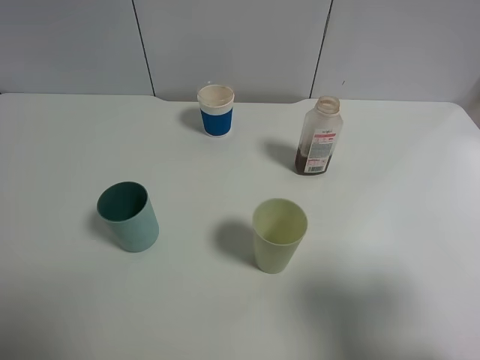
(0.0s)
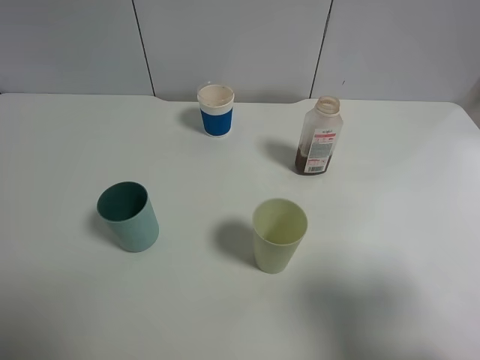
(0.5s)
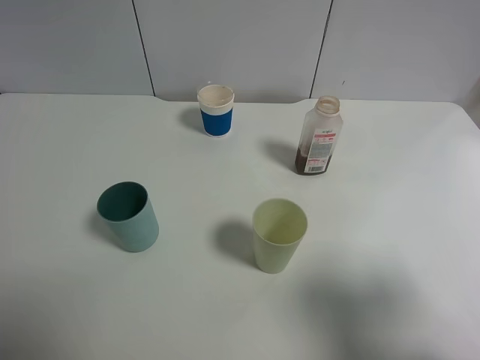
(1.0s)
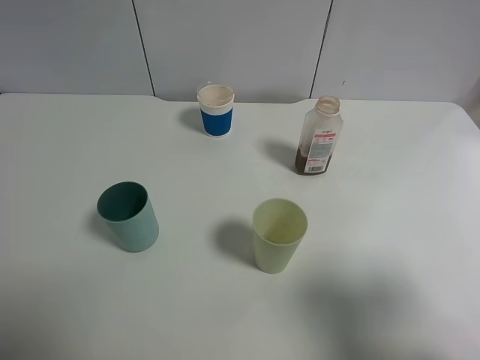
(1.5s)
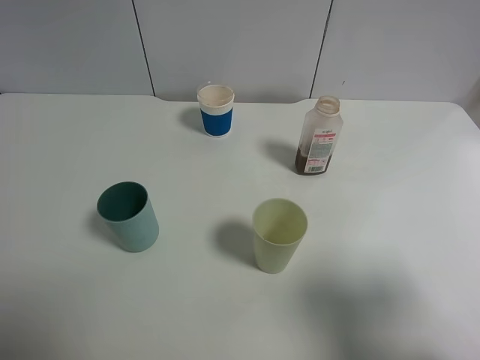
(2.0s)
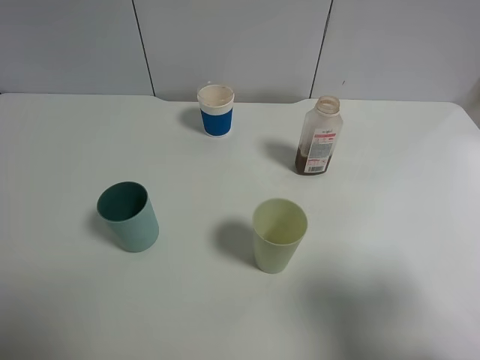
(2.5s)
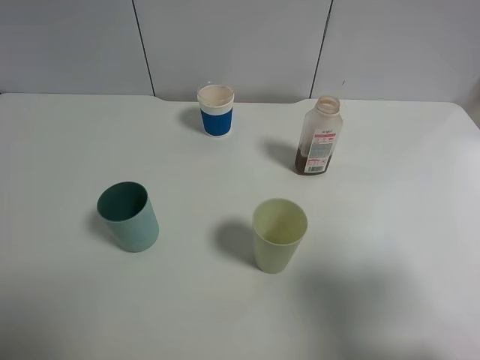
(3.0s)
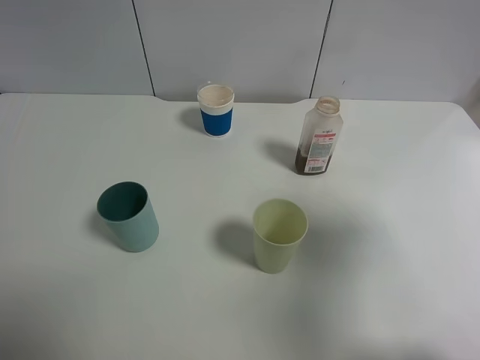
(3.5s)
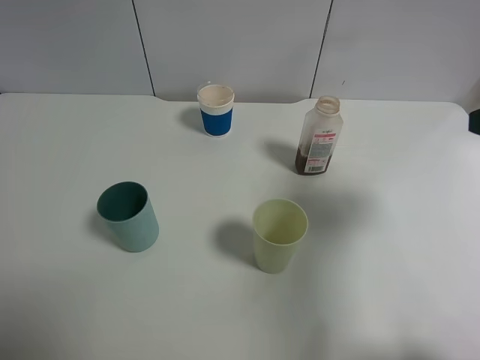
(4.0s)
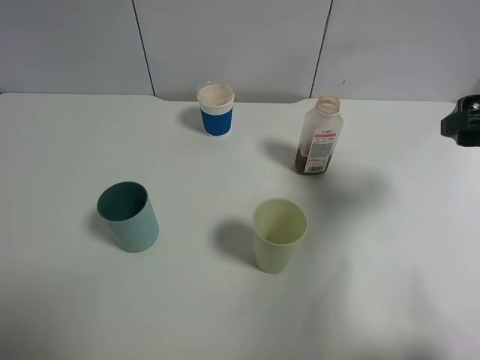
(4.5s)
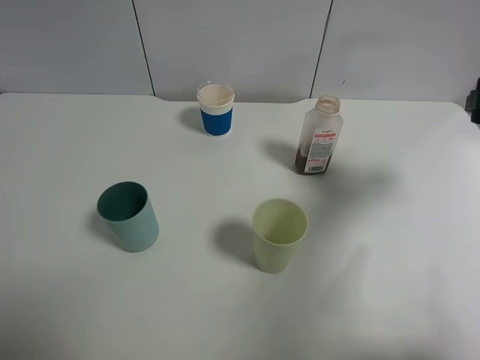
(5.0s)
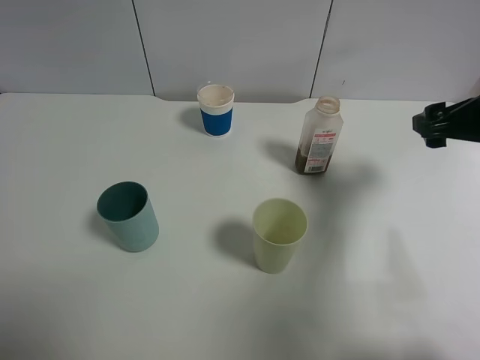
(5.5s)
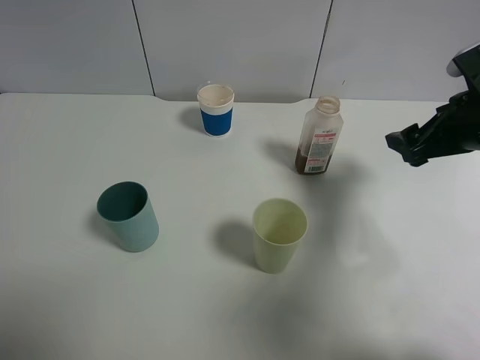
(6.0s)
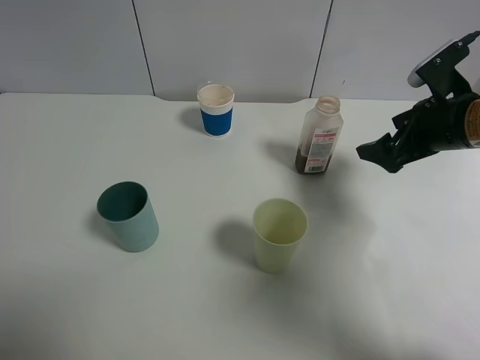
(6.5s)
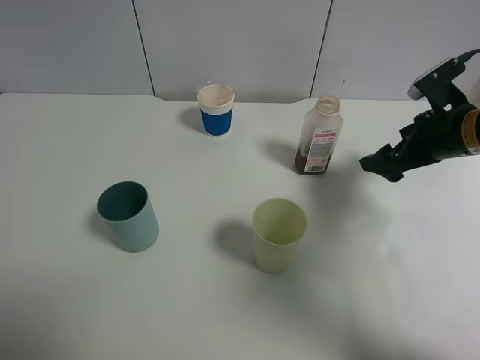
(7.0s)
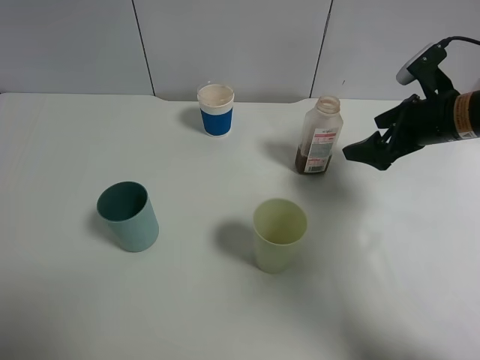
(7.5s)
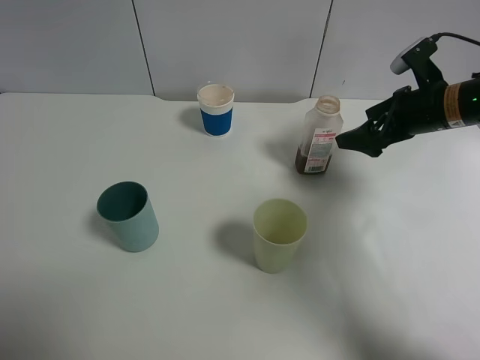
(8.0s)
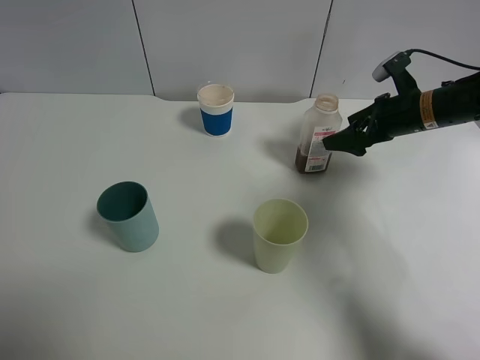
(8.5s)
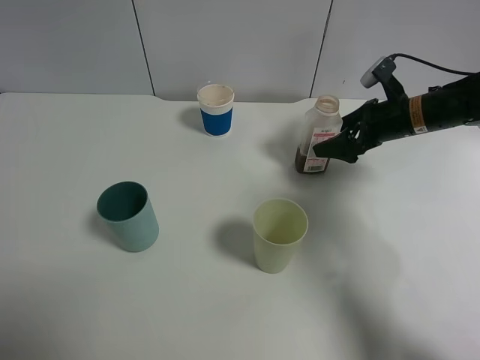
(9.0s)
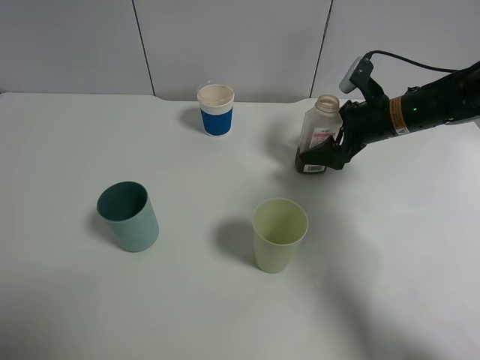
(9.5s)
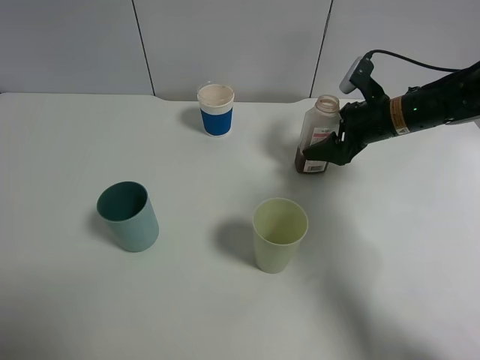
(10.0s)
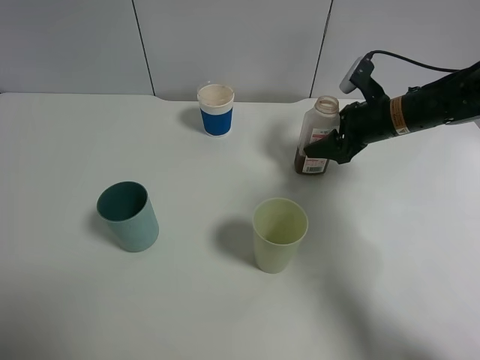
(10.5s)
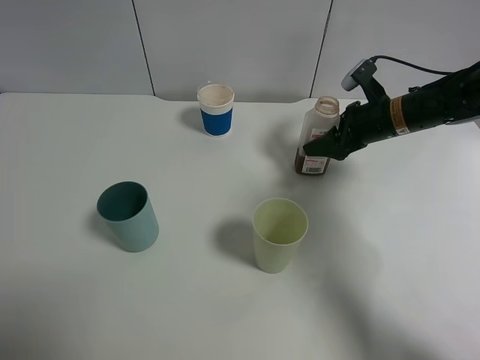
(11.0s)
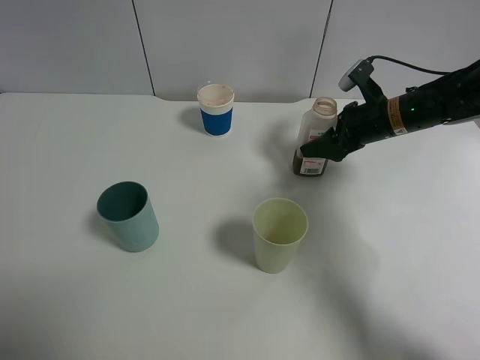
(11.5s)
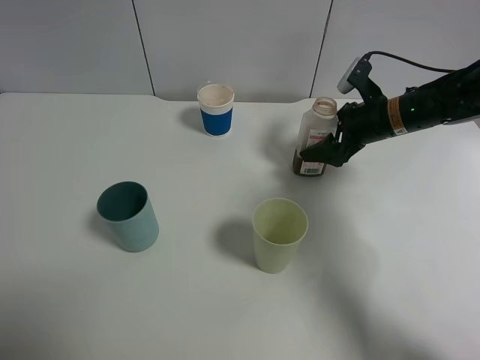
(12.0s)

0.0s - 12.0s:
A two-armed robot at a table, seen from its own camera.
Task of the whole recording: use a gripper to hold the bottle of the drink and pour it into a random cup.
Step, 0.0s - 10.0s: Grasp the cranberry juice bottle with the right gripper.
0.0s - 2.0s: Both grippers stay put.
2.0s - 4.0s: The right gripper is displaced forward by about 15 cm.
4.0s - 6.0s: The right gripper shifts roughly 15 cm forward and downward.
6.0s - 8.0s: The right gripper travels forward by roughly 10 cm.
8.0s - 10.0s: The right gripper ends up some 5 cm from where it was, and closes up.
10.0s - 12.0s: The grippers stay close to where they were, moving slightly.

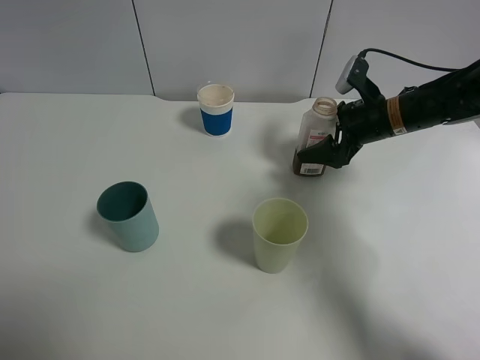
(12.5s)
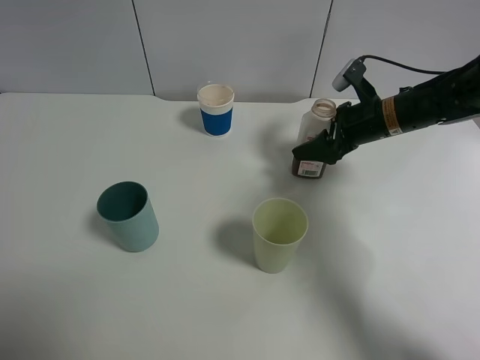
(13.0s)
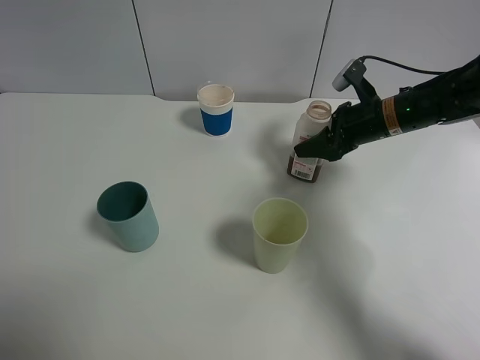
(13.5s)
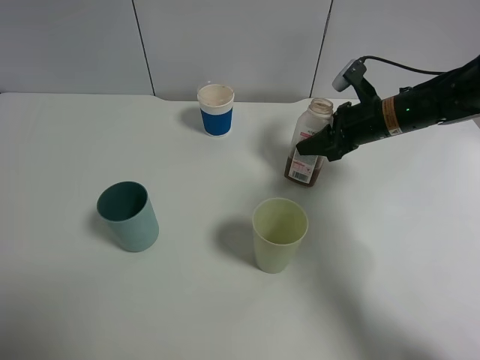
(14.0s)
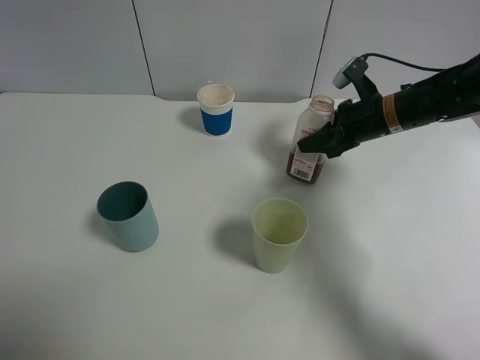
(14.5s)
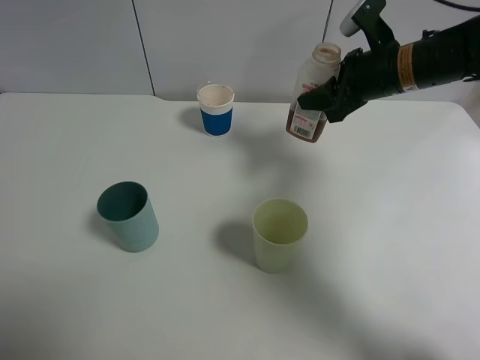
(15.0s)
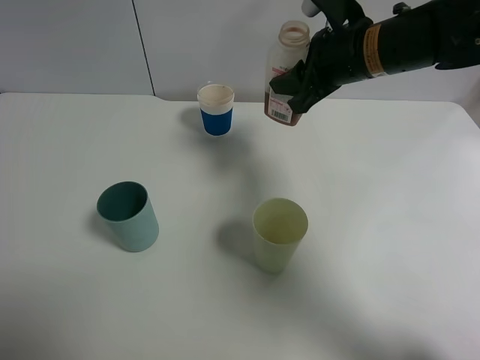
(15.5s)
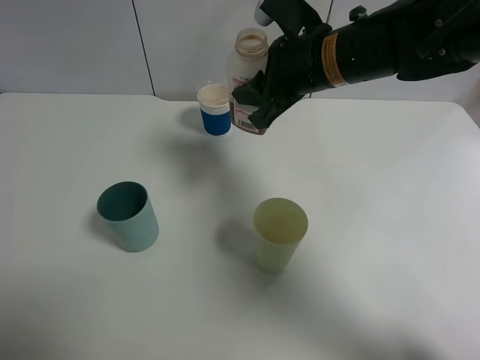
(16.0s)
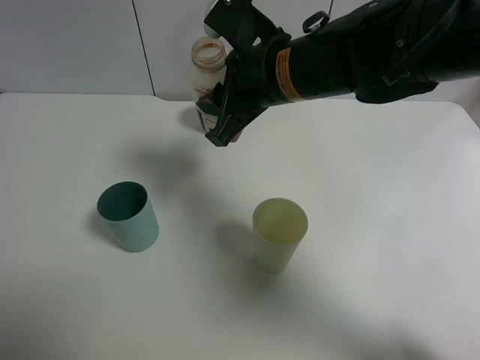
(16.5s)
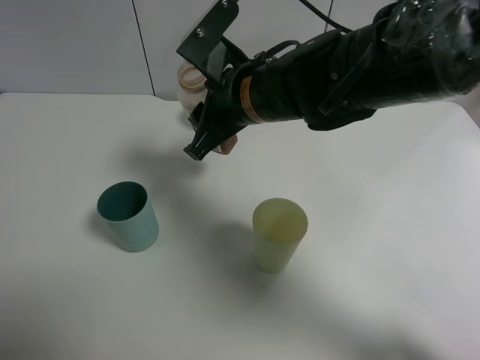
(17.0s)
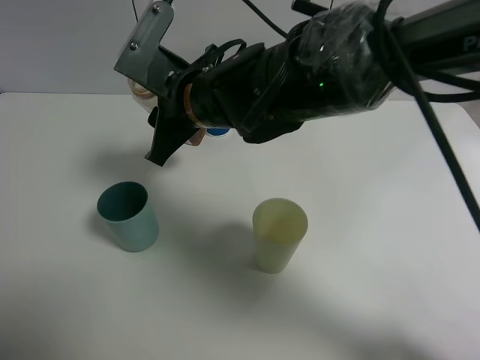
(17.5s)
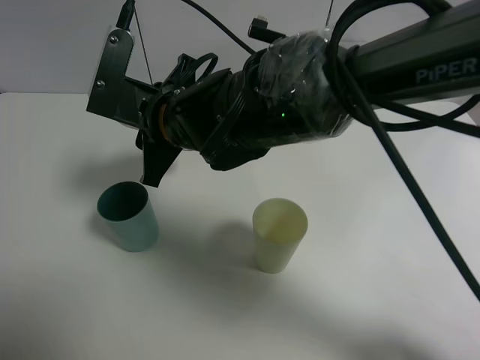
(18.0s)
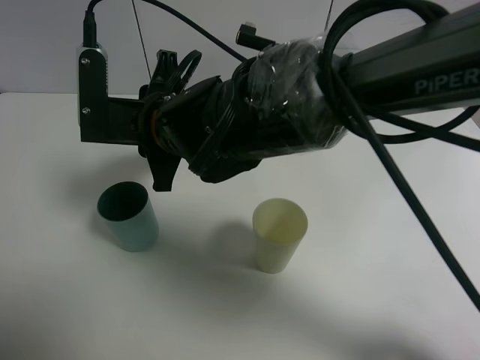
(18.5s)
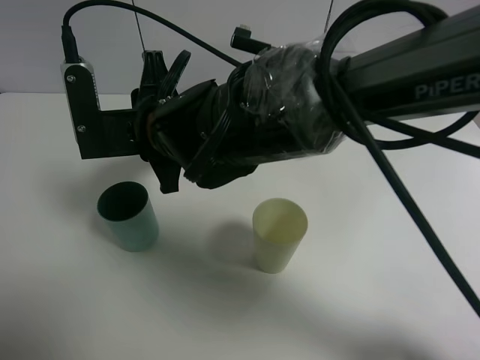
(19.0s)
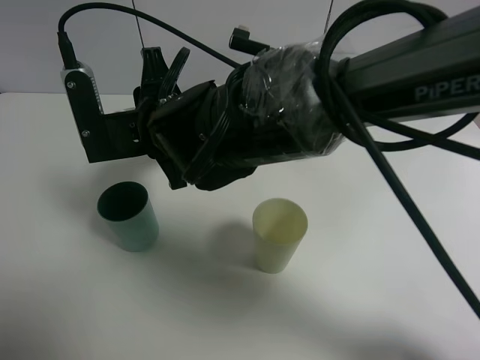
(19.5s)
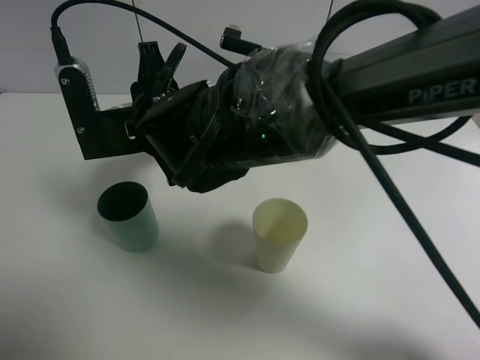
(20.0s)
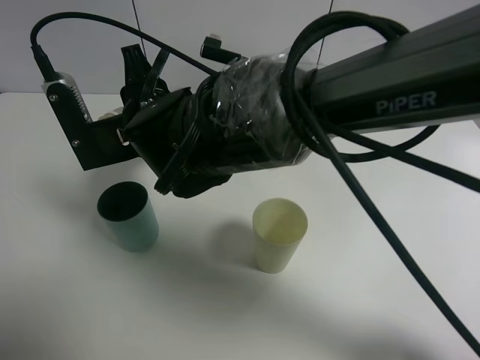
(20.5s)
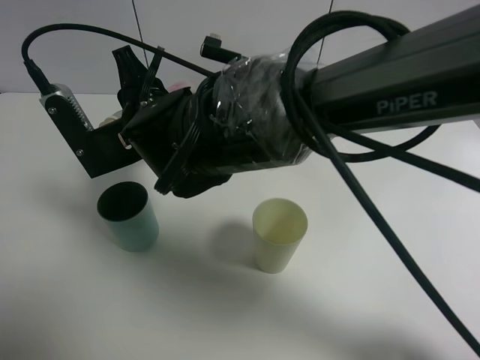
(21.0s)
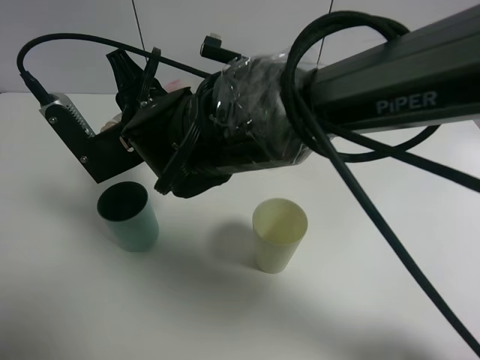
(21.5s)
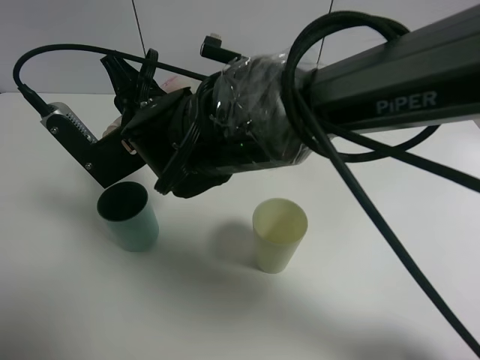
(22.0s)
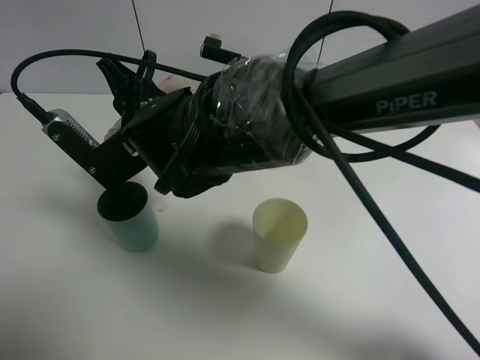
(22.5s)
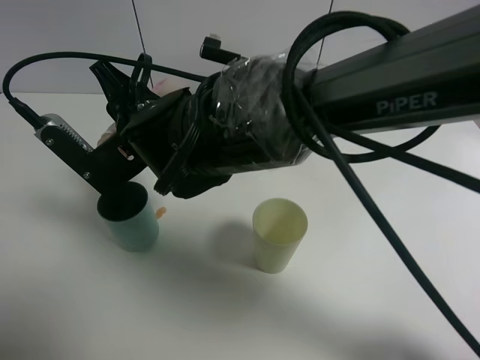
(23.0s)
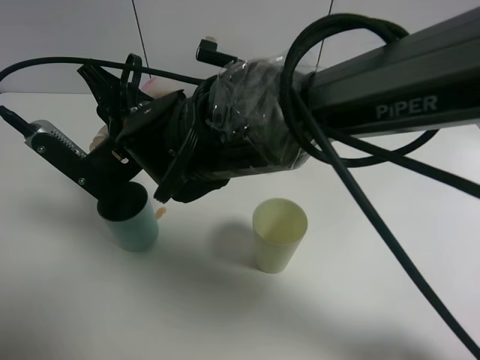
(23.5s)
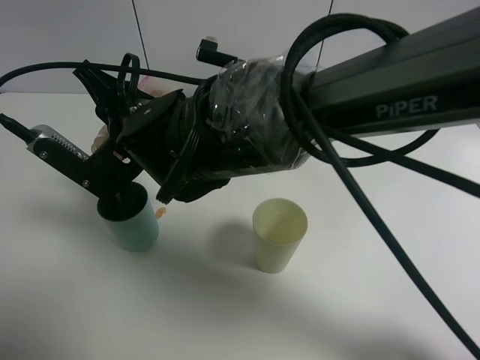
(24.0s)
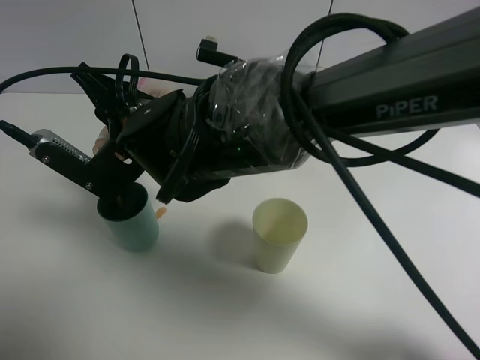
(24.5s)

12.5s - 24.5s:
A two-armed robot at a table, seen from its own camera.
Task of the whole recording: use a gripper to hold the bottle of the drink and pour it into a random cup.
12.5s - 14.5s: The right gripper closes.
14.5s - 16.5s: The right gripper travels to the left, upward and backward by approximately 20 cm.
16.5s - 18.5s: The right gripper heads to the left, covering approximately 10 cm.
22.5s - 24.5s: The grippers make only small movements.

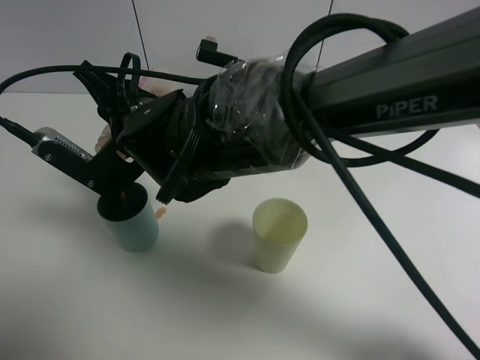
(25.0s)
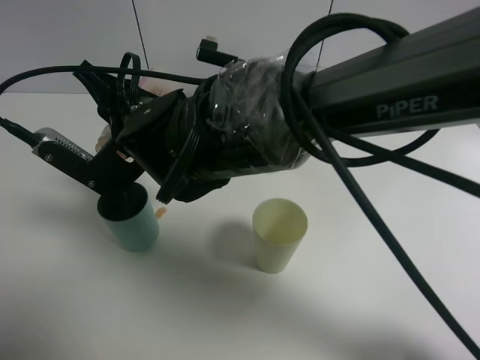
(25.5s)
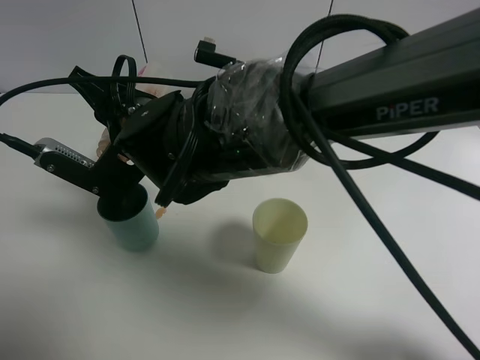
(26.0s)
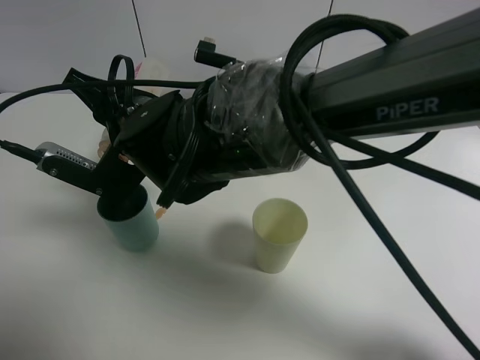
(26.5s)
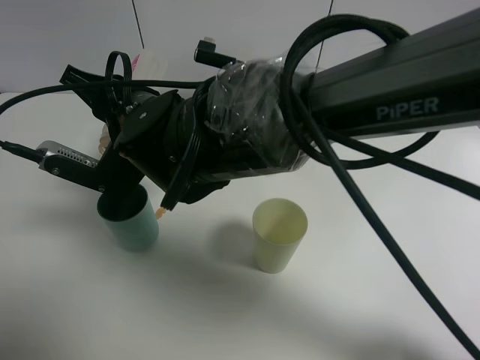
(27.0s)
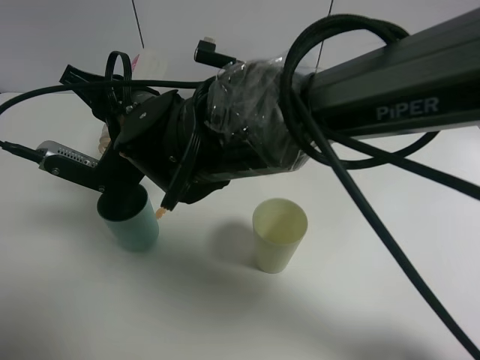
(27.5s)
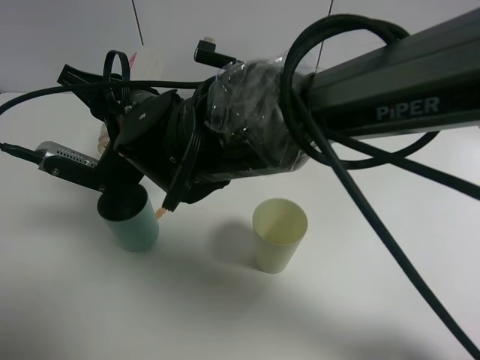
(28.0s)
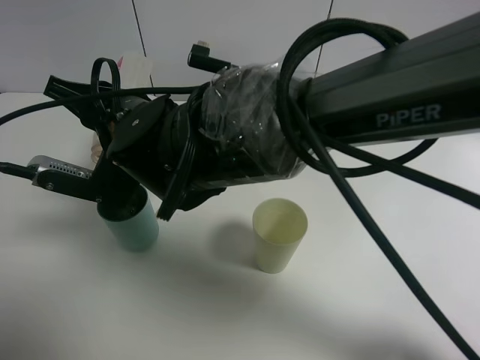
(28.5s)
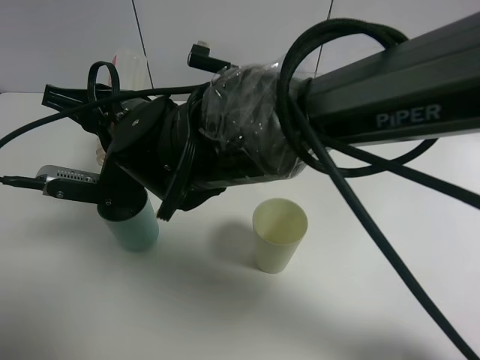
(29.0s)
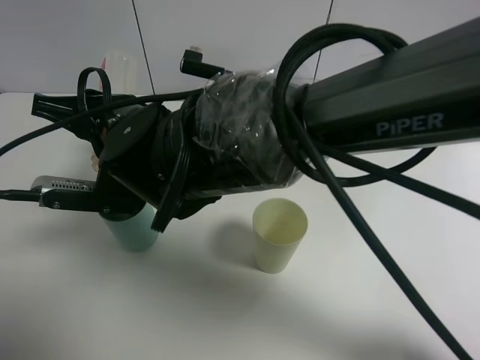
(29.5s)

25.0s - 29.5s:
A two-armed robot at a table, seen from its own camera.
Task of the whole recording: use a gripper to hold the bottle of the drink and pour it into a random cup.
25.0s - 27.0s: The grippers move only a little.
